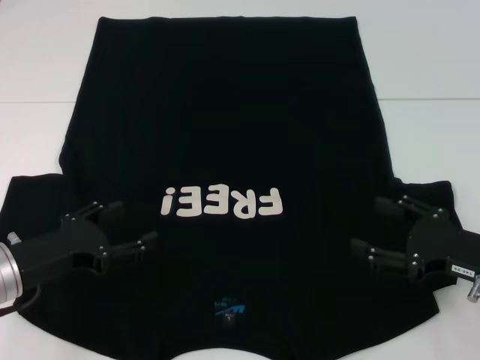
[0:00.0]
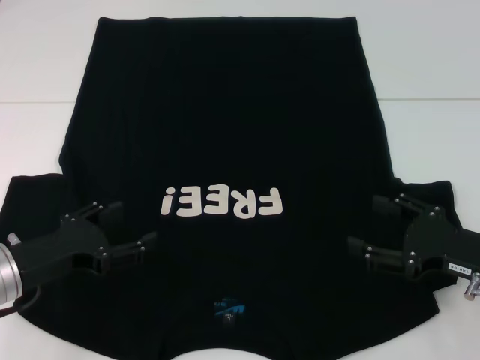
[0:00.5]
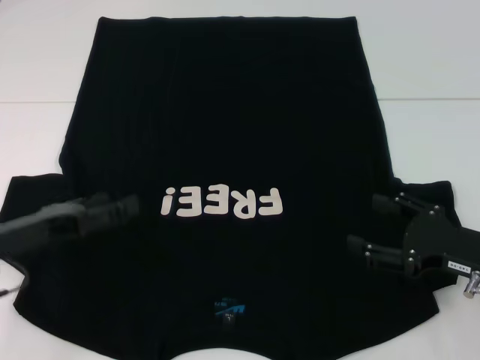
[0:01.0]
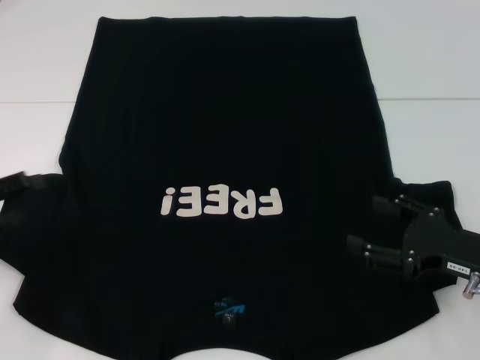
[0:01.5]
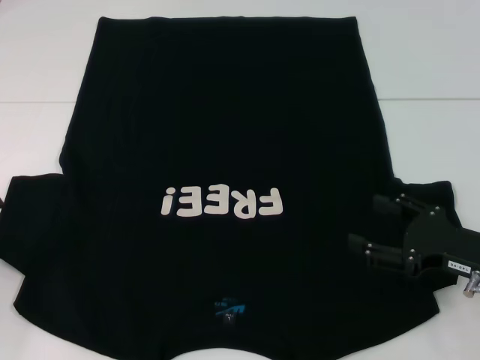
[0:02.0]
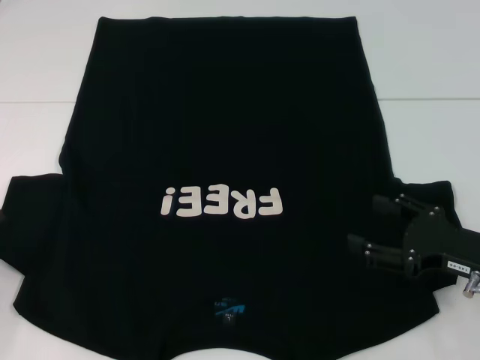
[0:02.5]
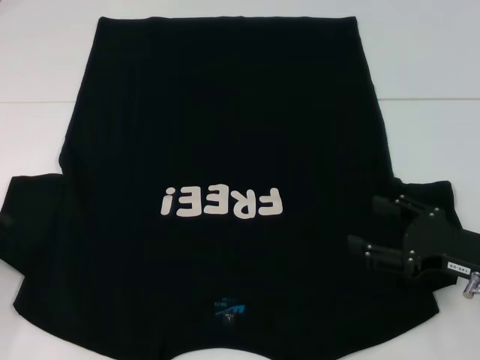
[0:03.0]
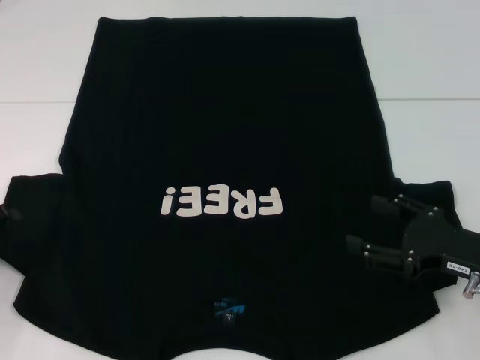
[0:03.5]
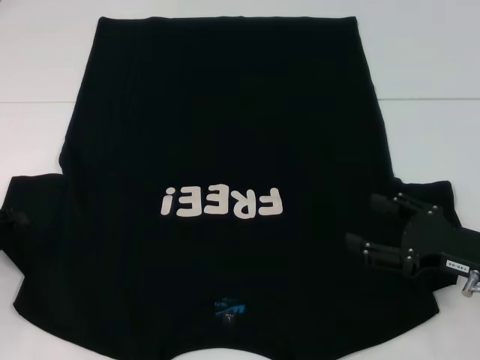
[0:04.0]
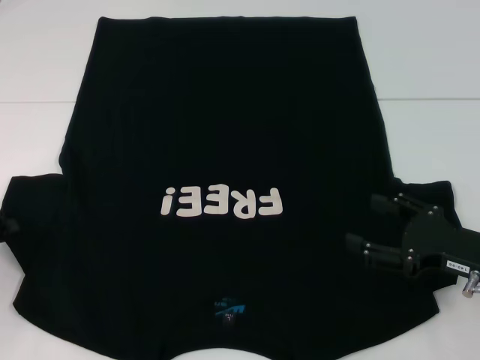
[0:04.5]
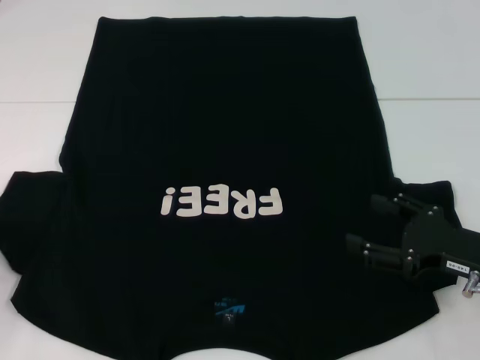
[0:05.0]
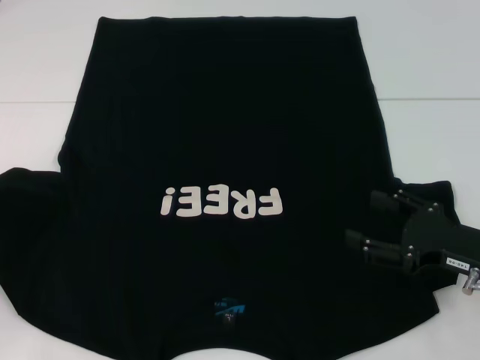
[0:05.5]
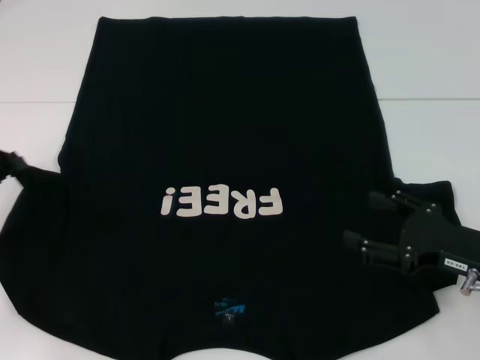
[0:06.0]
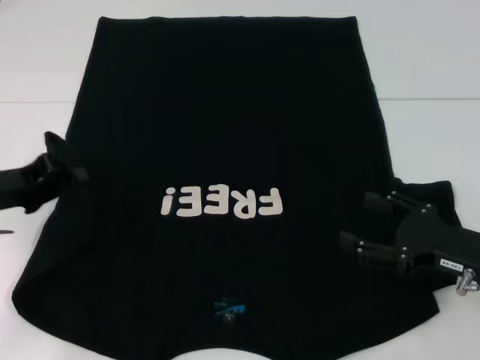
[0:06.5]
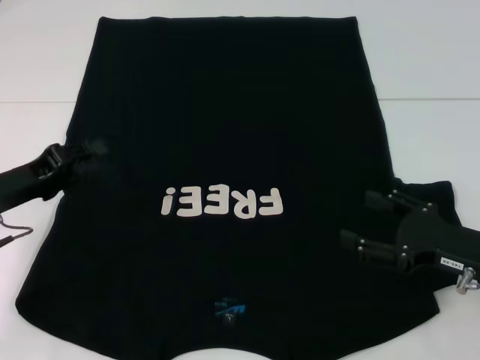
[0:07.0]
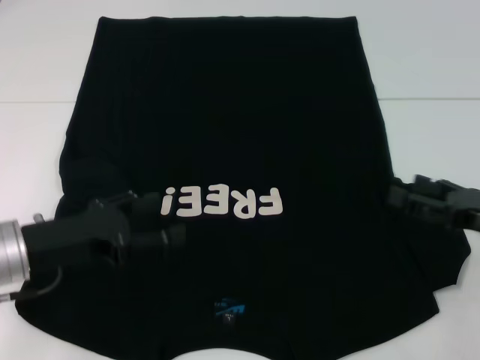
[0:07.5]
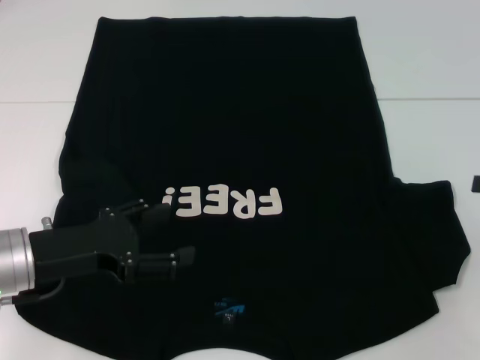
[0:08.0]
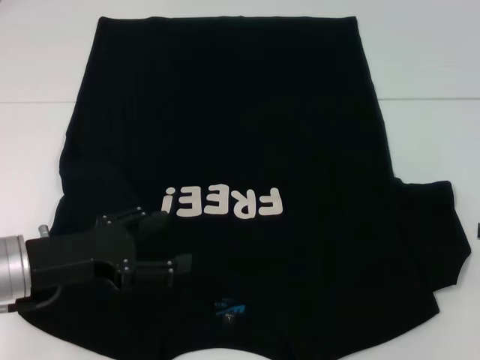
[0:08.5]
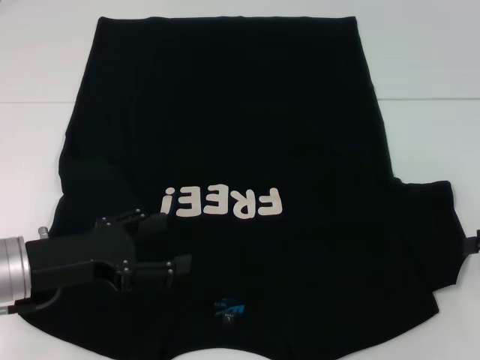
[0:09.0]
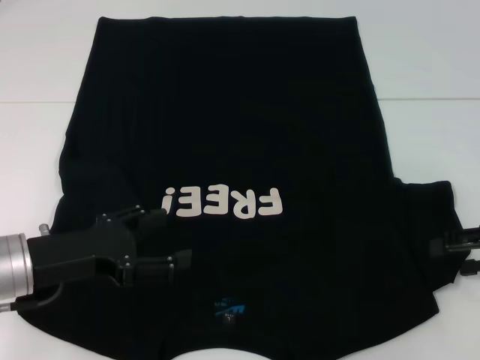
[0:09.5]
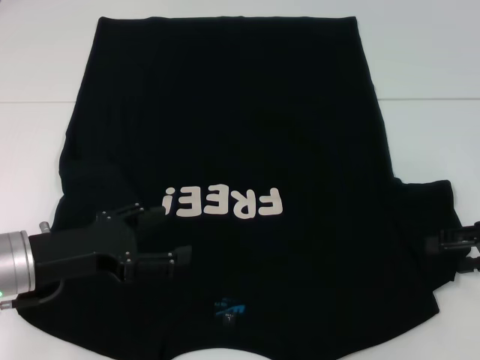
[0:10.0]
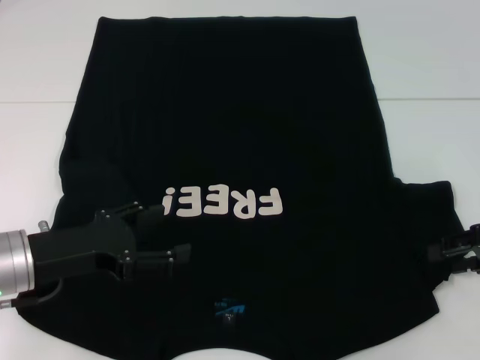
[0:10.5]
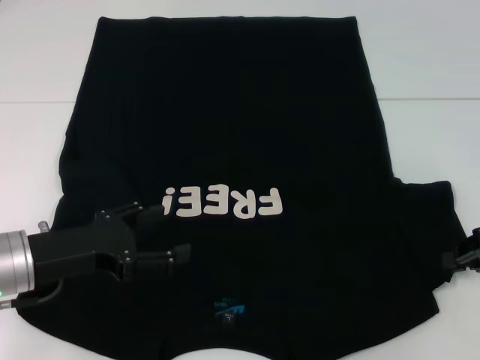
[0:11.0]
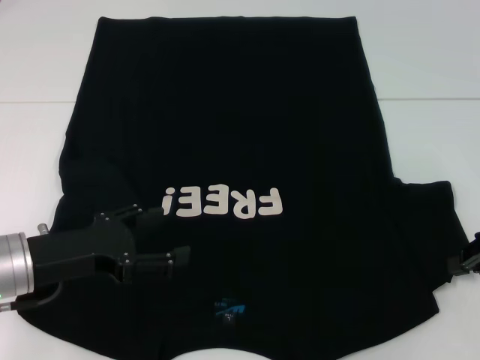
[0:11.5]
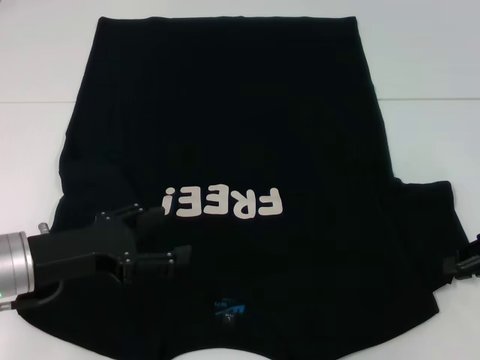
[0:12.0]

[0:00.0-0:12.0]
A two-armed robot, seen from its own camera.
Step, 0.0 to 7.0 s: Fold the bottom left sleeve with your left hand.
0.0 to 2.0 s: The left gripper moves to the left and upward, about 15 cm.
4.0 to 6.0 s: The left gripper heads upward, covering roughly 5 cm, and closes its fingers.
6.0 to 8.0 s: The right gripper moves to the right and upward, some 15 cm; the left gripper shifts about 10 cm to the right, and opens up.
8.0 to 10.0 s: The right gripper moves approximately 5 cm.

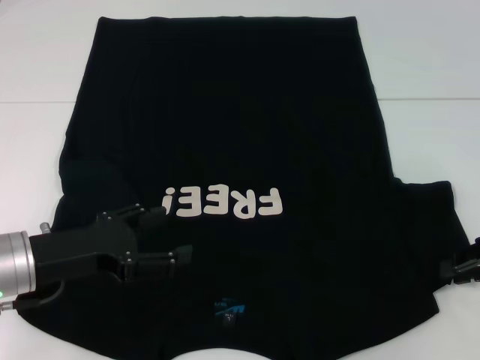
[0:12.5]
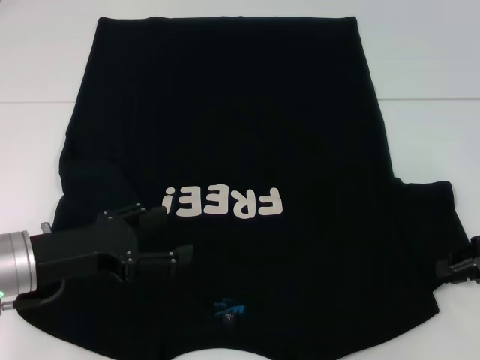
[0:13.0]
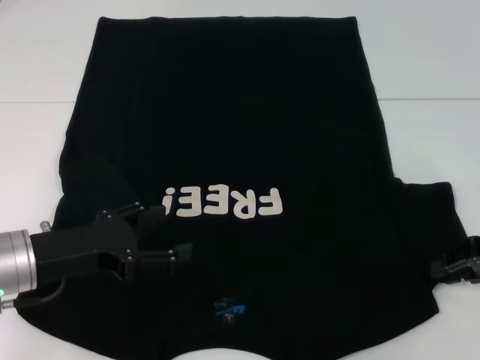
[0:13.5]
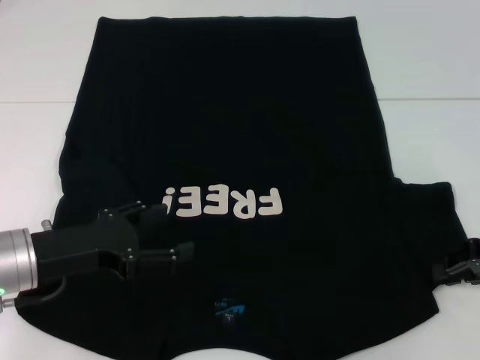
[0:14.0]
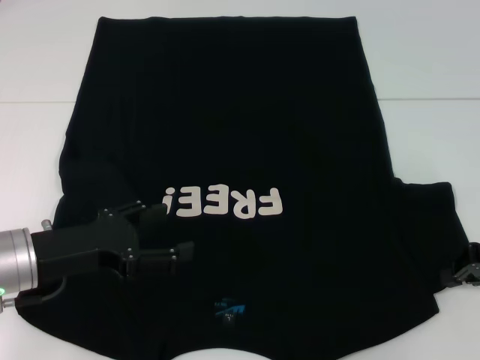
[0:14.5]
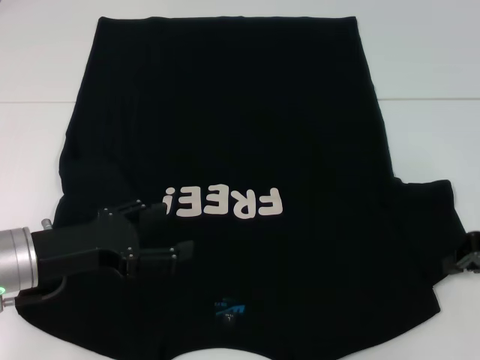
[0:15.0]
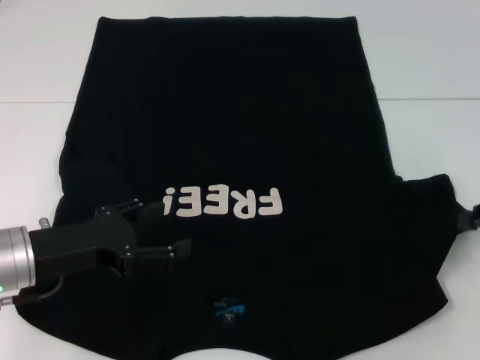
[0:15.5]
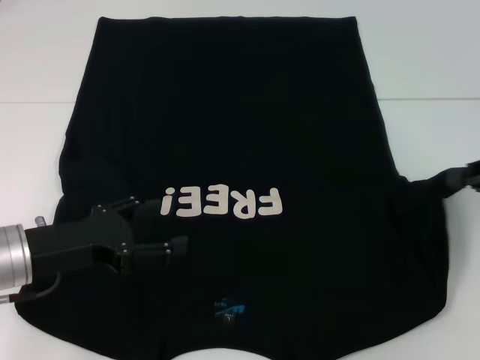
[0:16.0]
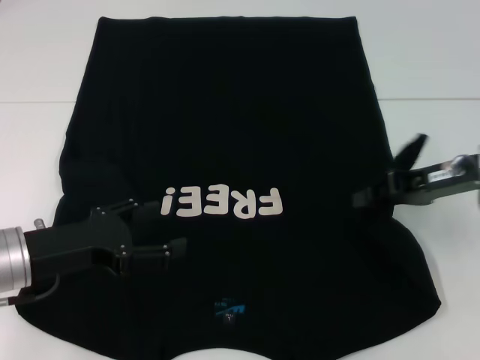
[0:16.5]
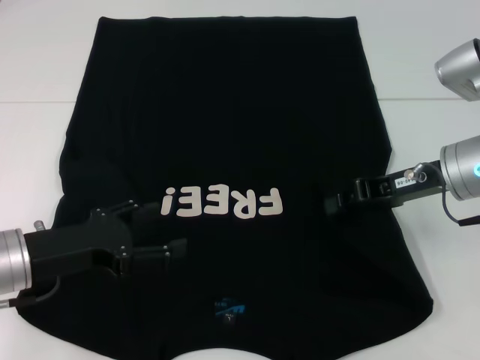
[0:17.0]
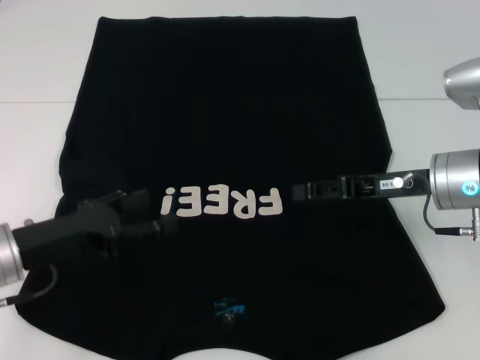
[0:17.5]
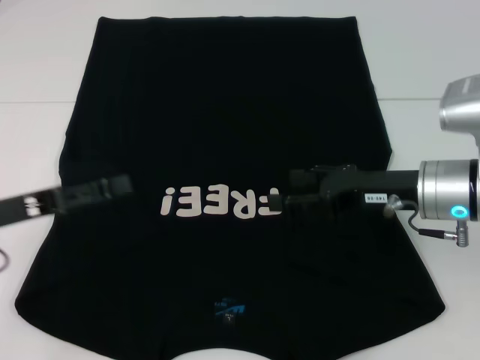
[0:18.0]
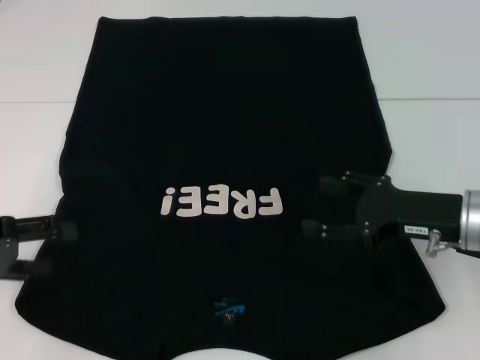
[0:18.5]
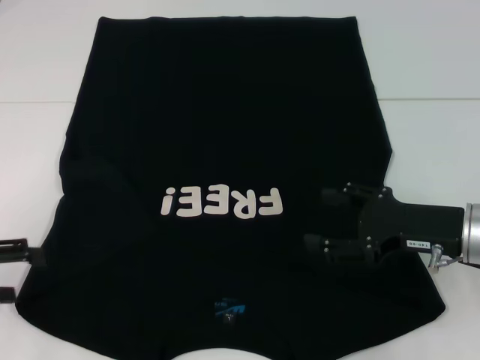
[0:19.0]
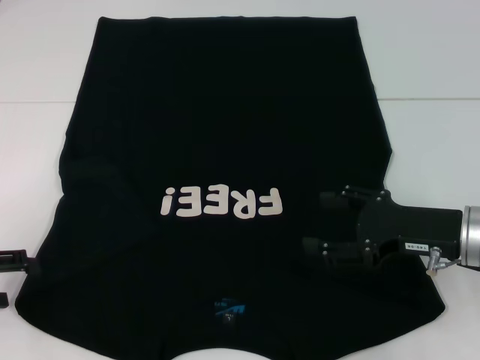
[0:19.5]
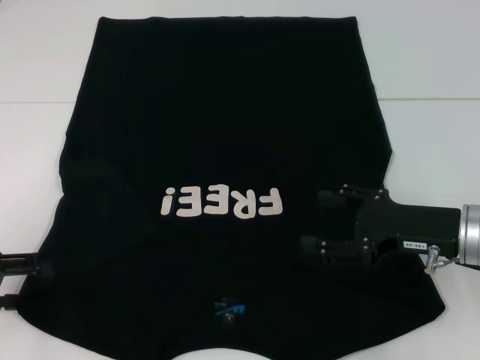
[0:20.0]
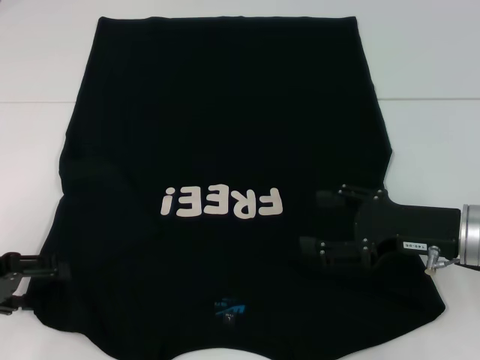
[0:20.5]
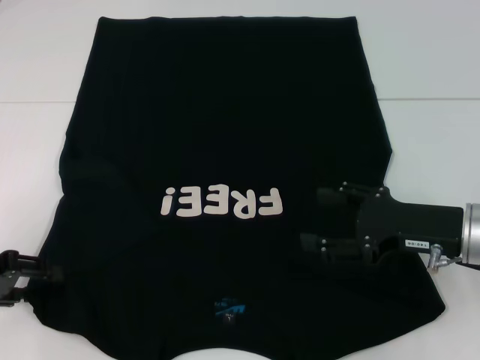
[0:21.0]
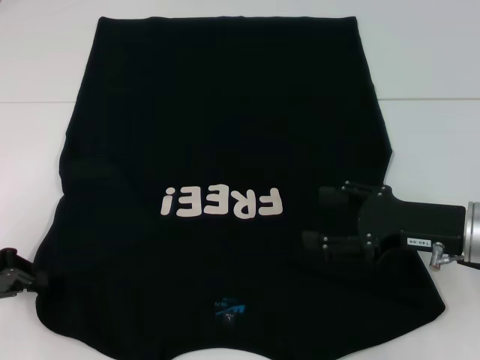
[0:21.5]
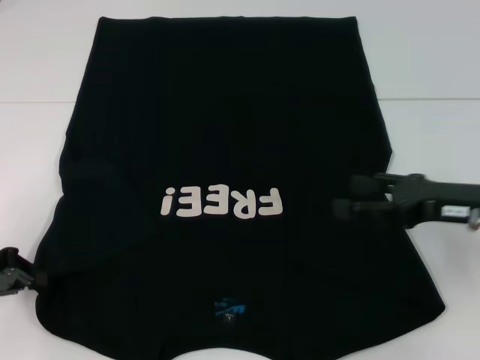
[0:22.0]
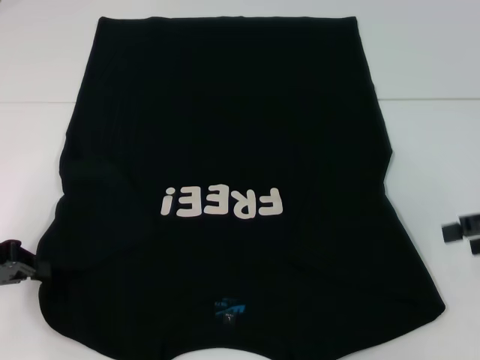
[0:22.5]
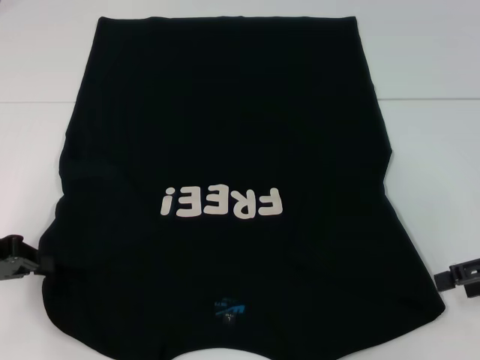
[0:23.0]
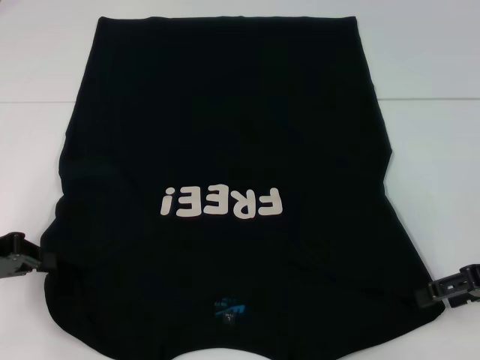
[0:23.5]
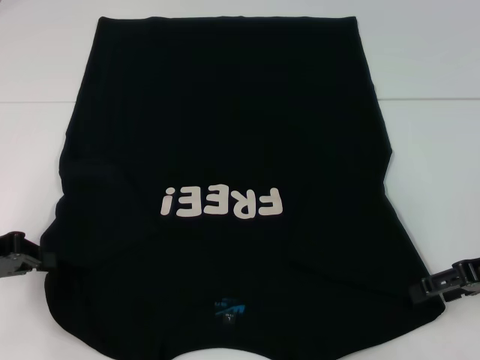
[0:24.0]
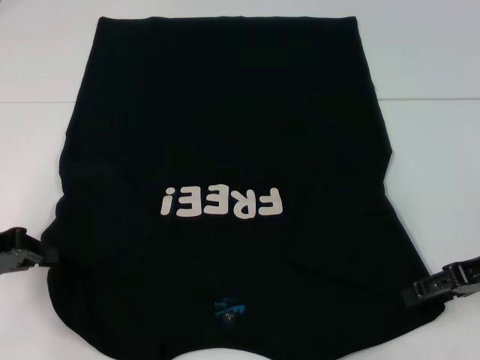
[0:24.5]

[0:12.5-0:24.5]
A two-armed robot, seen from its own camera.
Step, 12.5 to 17.0 s: Fold the bottom right sleeve with your right hand.
Step, 17.5 to 21.5 s: Grab the bottom left corner with your left hand.
12.5 to 14.5 s: There are only small adjustments of the grippers.
14.5 to 16.5 s: The right gripper moves to the left, about 10 cm.
16.5 to 18.5 s: The left gripper shifts about 10 cm to the left. Meanwhile the right gripper moves backward, roughly 5 cm, and opens.
18.5 to 20.5 s: The grippers make only small movements.
20.5 to 22.5 s: The right gripper is displaced to the right and upward by about 15 cm, while the left gripper closes up.
22.5 to 24.5 s: The right gripper heads to the left, covering some 5 cm.

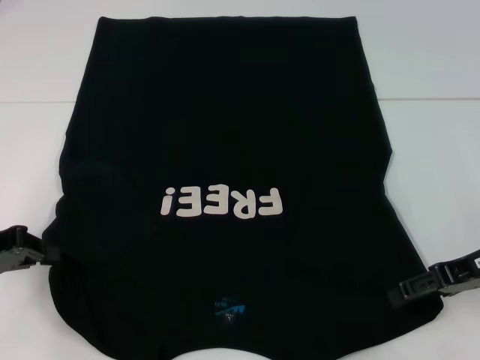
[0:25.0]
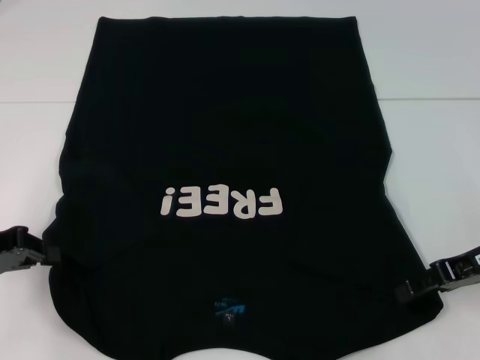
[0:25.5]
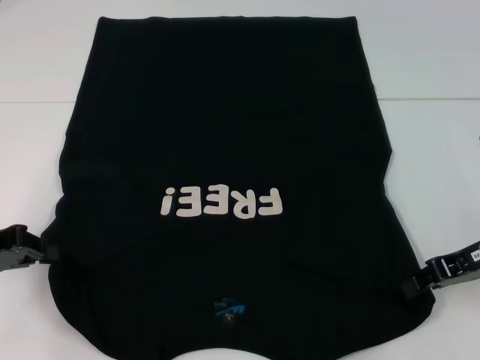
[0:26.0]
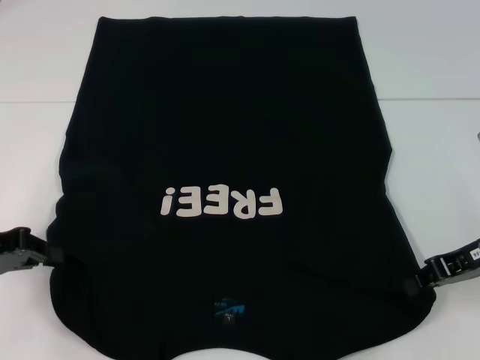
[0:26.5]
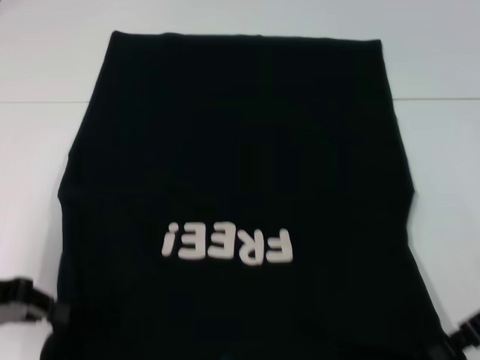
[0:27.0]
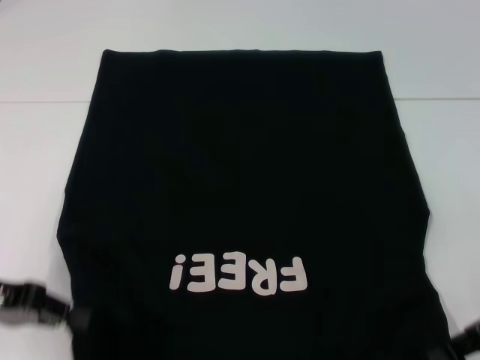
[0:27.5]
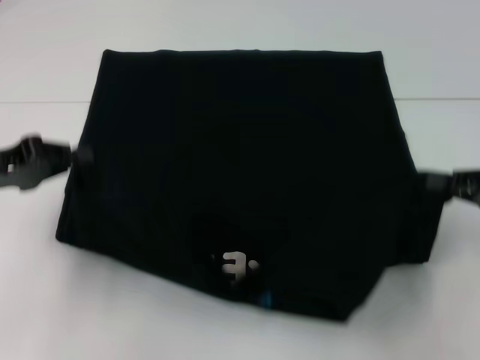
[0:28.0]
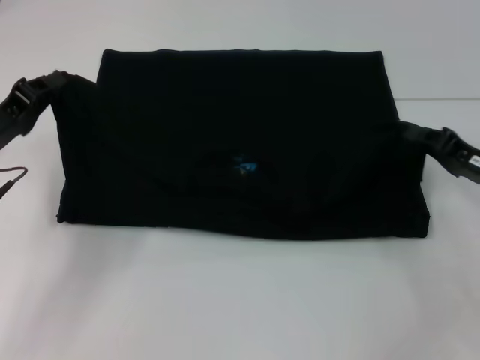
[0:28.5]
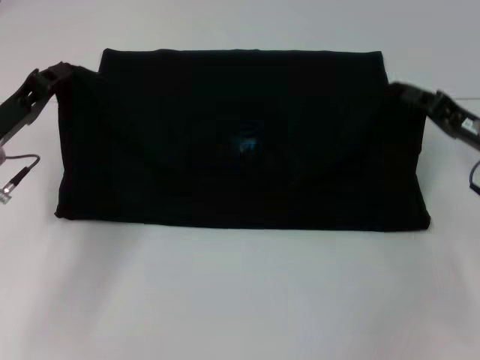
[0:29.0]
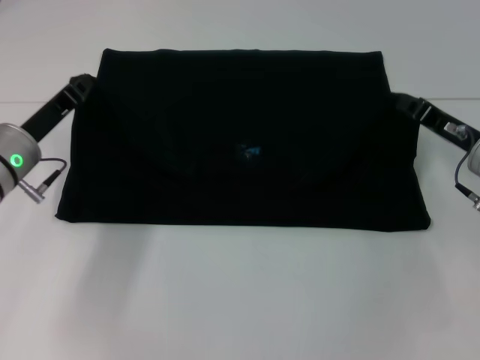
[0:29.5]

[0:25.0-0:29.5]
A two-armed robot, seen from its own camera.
25.0 to 27.0 s: The right gripper closes up.
27.0 to 29.5 s: The left gripper shifts some 15 cm forward and to the right, while the right gripper shifts approximately 10 cm forward.
